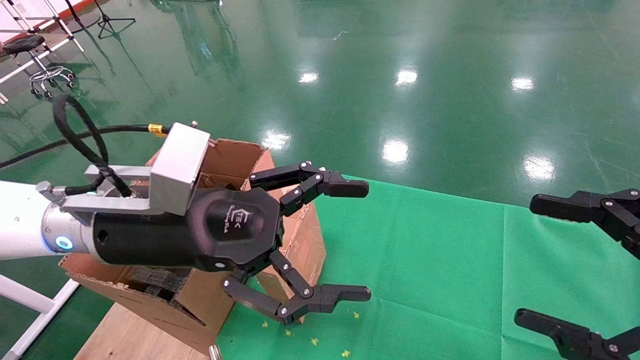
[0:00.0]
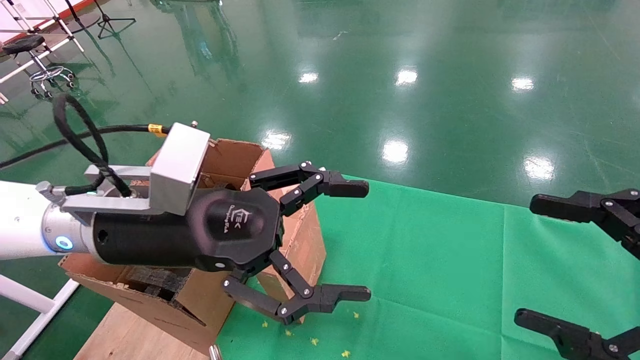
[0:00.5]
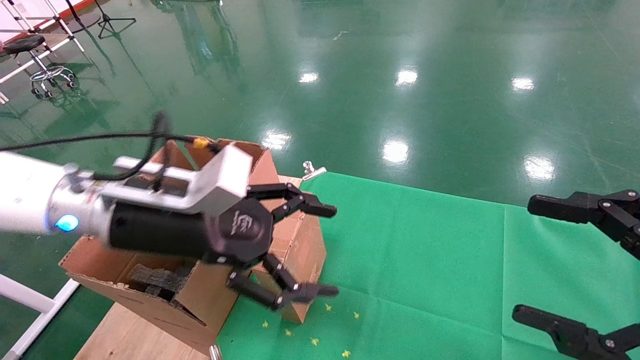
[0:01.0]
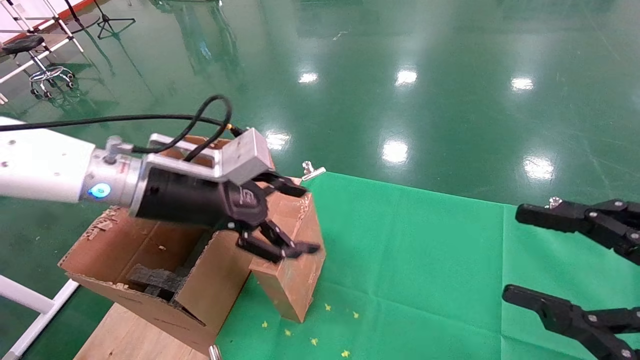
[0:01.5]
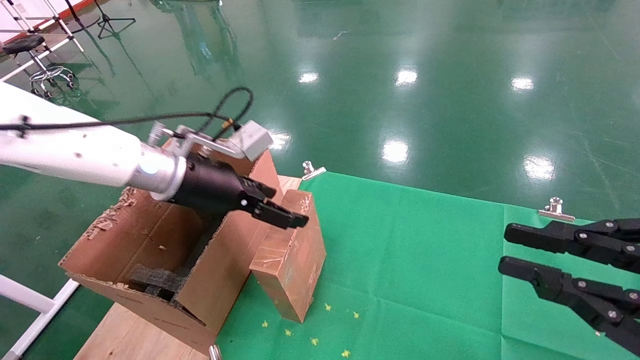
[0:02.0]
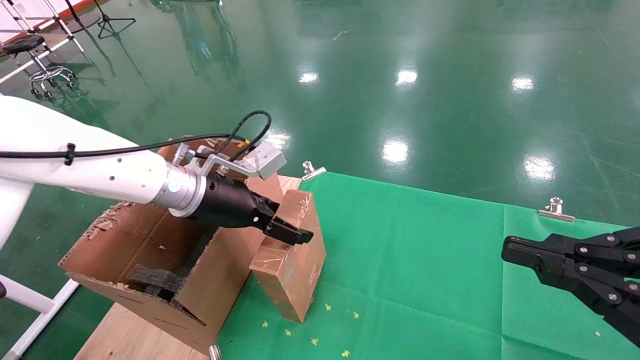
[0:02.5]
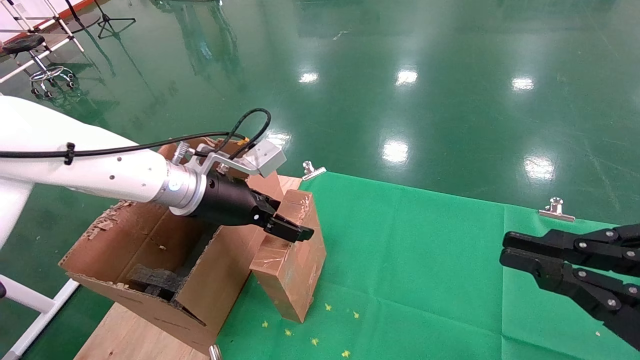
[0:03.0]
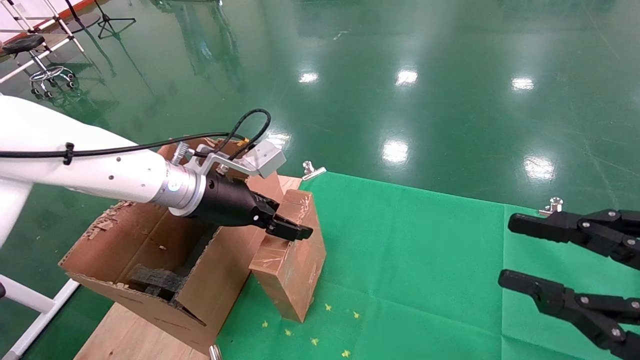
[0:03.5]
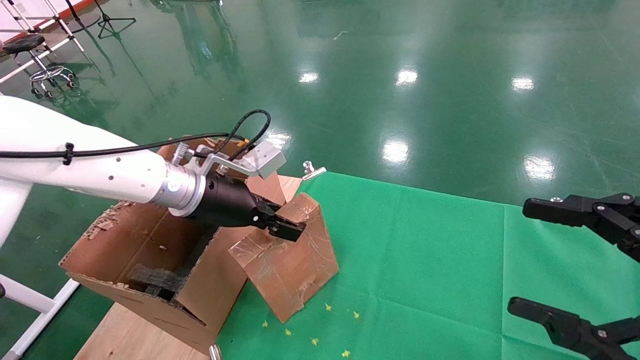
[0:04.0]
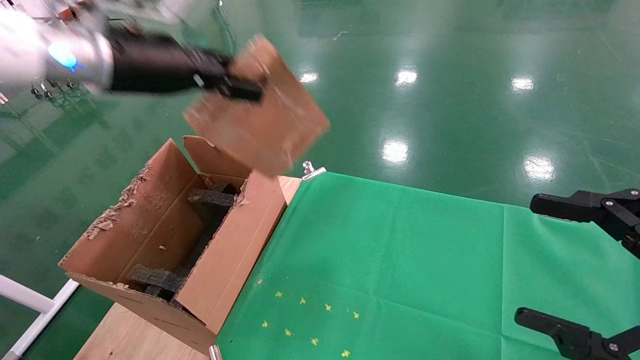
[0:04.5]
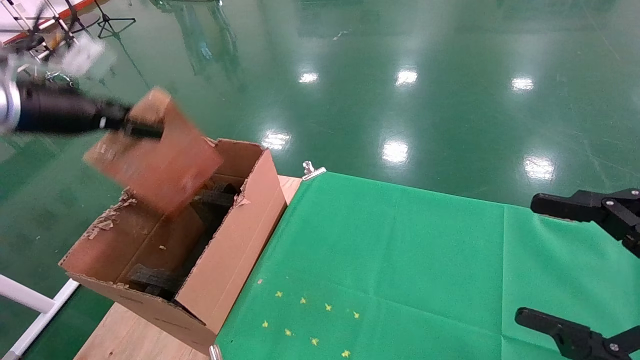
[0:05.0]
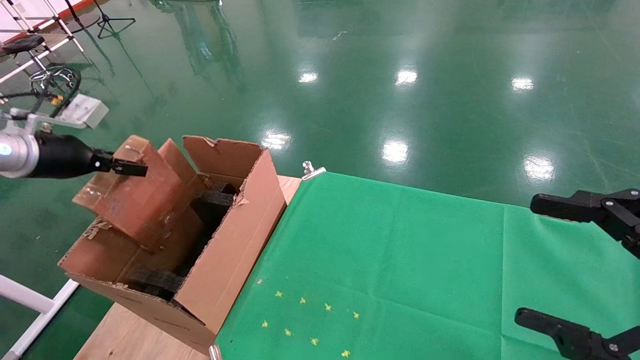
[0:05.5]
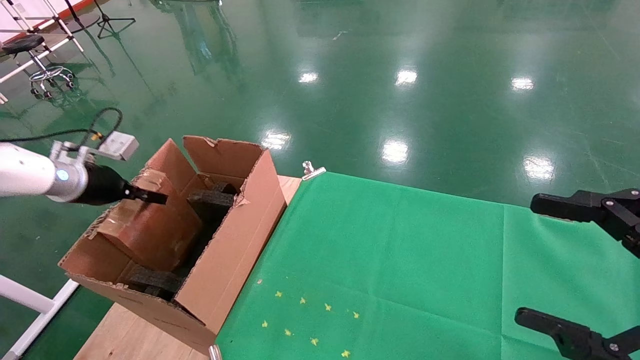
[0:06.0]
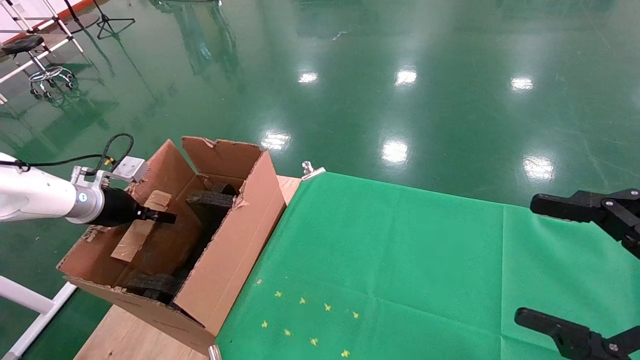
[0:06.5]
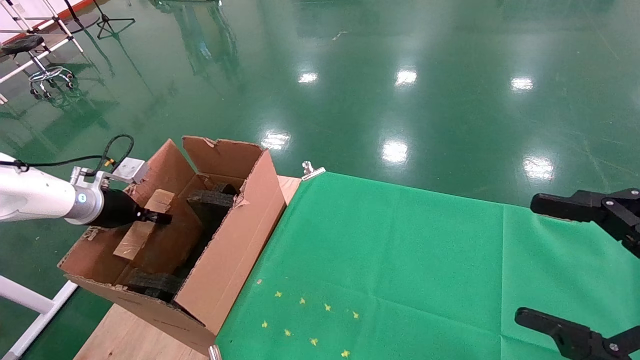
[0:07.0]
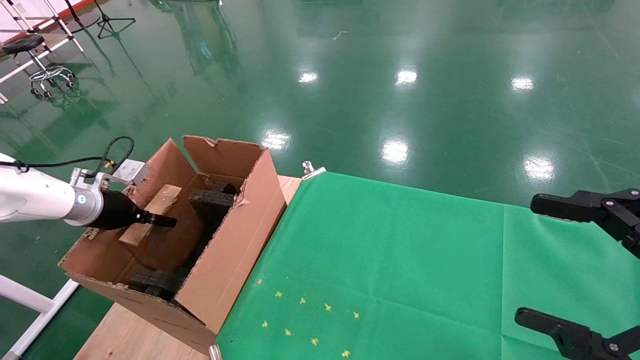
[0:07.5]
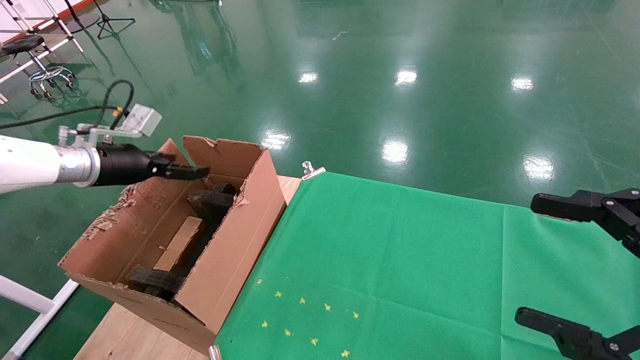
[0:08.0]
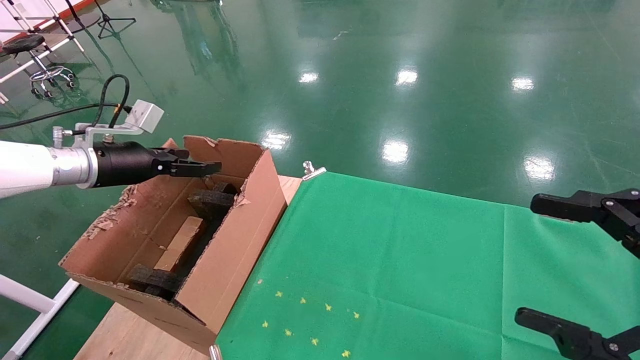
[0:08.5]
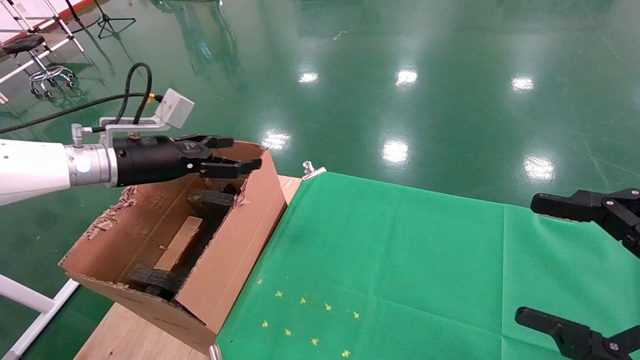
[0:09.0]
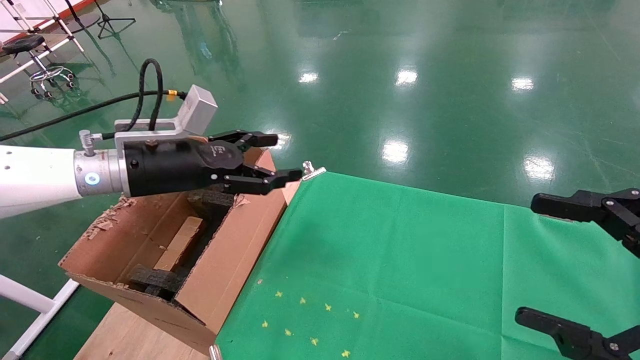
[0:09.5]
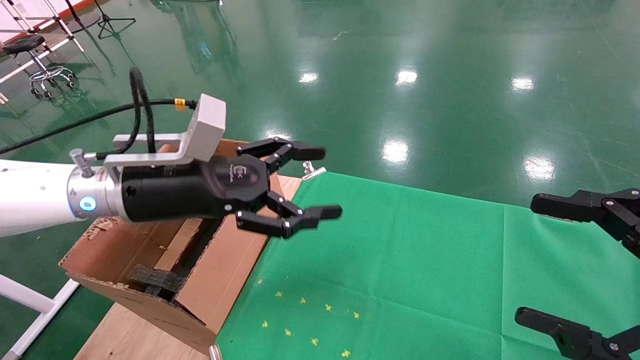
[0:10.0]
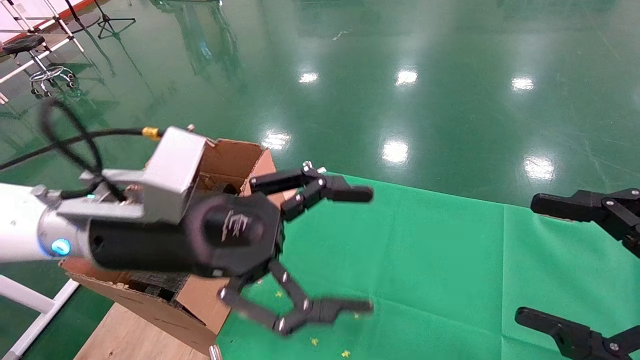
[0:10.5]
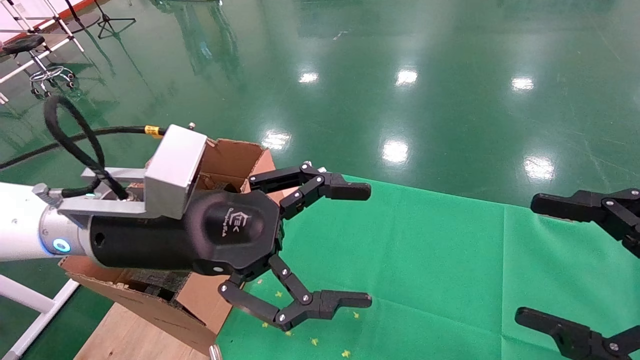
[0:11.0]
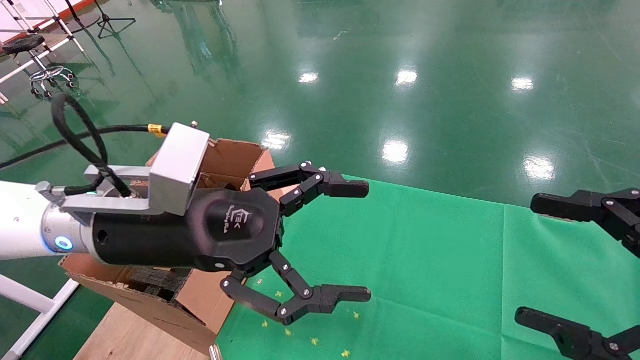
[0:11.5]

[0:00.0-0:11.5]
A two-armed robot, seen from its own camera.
Task of the whole recording: using a robotic arm to pick up a cardboard box and palace it the carton.
Step, 0:01.0 to 0:04.0: Pick up the mouse and the power cord paper box.
Step, 0:04.5 to 0:08.0: Place the mouse and the power cord paper box into the container.
0:00.0 to 0:02.0: The right gripper closes up. The left gripper is displaced forward by about 10 cm.
0:02.0 to 0:04.0: The left gripper closes; the right gripper opens up.
0:04.0 to 0:06.0: The left gripper travels to the left by roughly 25 cm.
0:06.0 to 0:07.5: The left gripper opens.
0:07.5 to 0:09.5: The left gripper heads to the right and upward, covering approximately 20 cm, and opens its fingers.
0:09.5 to 0:11.5: The left gripper shifts about 15 cm backward and to the right.

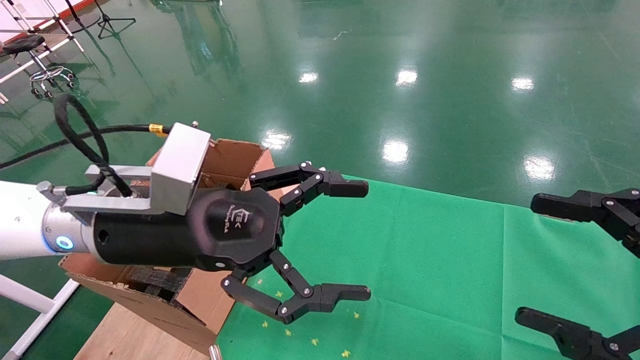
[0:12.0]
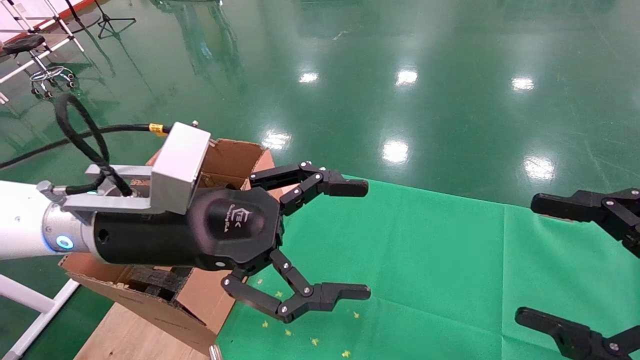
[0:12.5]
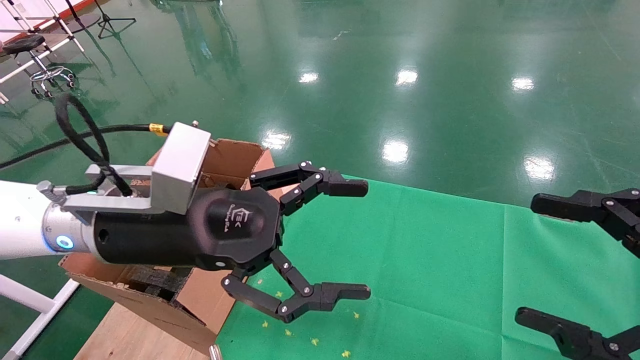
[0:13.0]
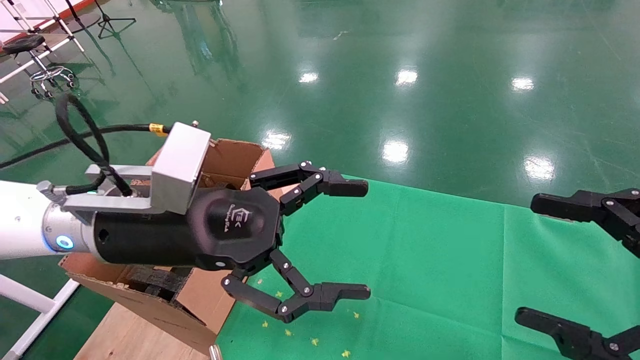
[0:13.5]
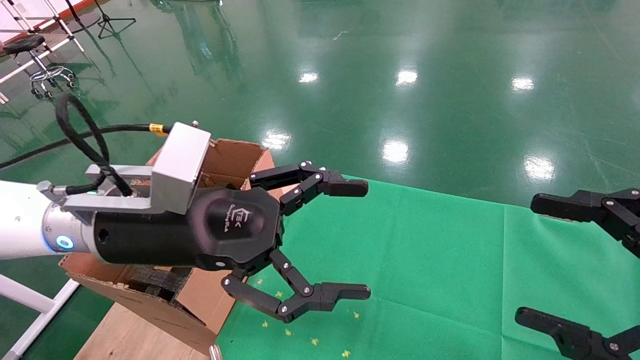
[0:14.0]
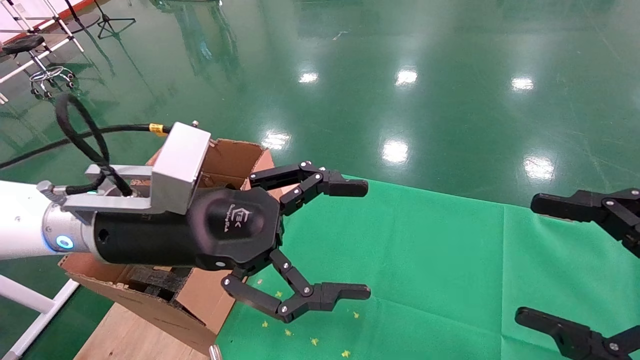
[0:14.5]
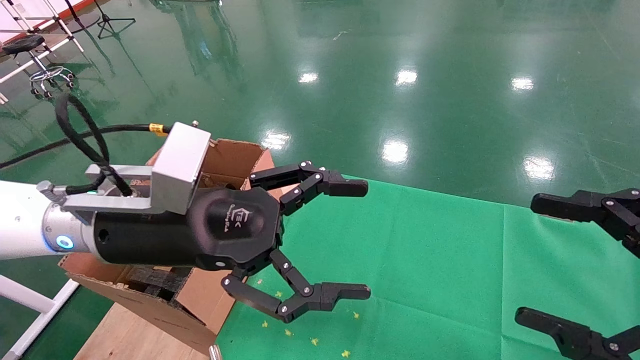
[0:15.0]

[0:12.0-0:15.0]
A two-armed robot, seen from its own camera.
Task of the whole recording: using a robotic arm to pick up a cardboard box and palace it the carton.
0:12.0 to 0:15.0: Both grippers stay put.
